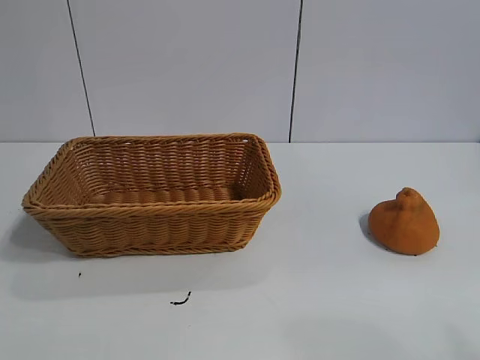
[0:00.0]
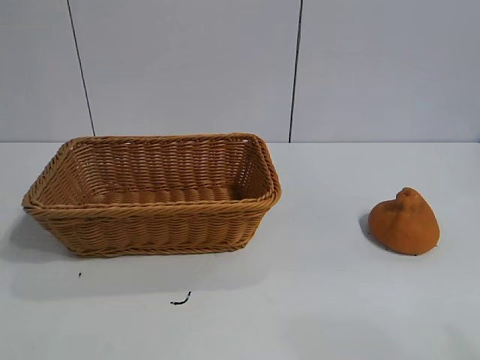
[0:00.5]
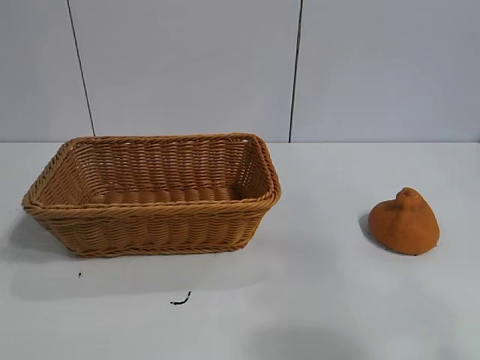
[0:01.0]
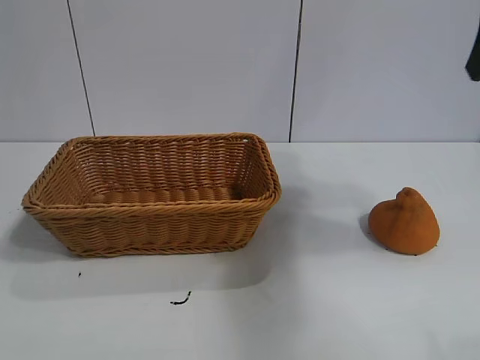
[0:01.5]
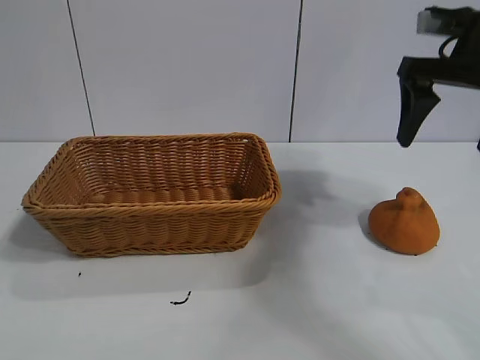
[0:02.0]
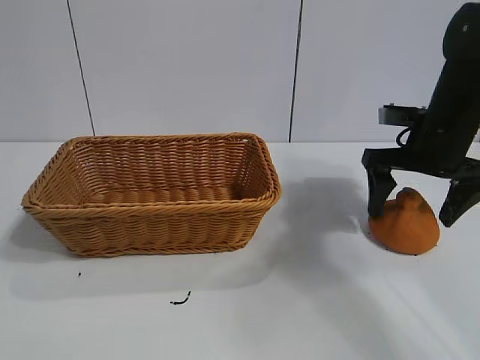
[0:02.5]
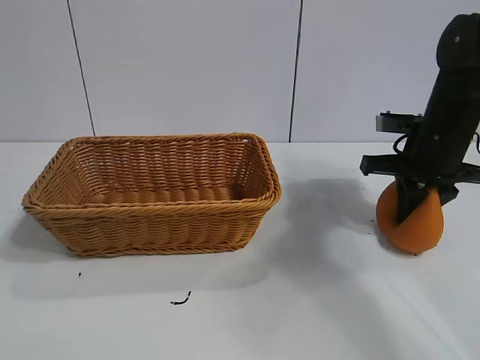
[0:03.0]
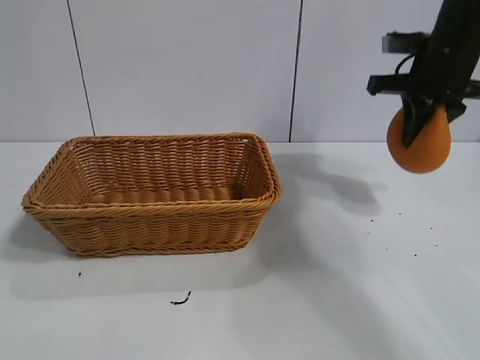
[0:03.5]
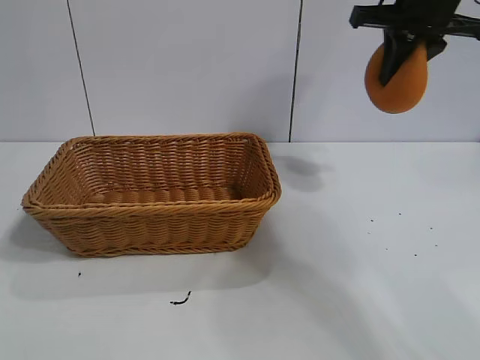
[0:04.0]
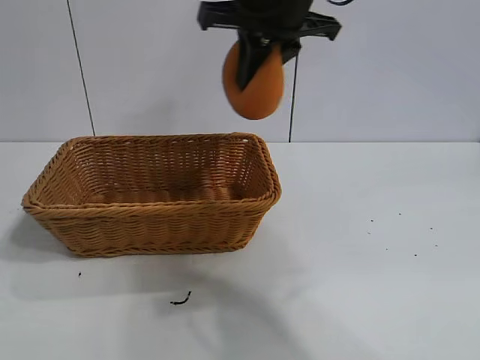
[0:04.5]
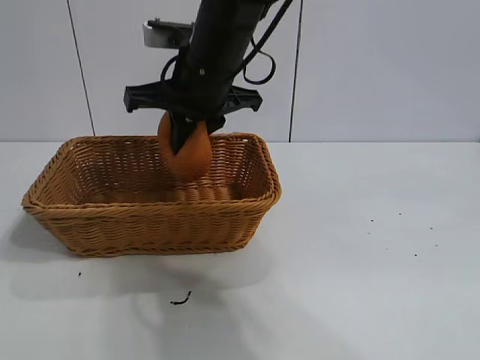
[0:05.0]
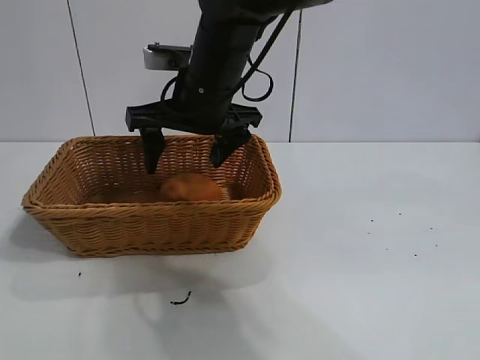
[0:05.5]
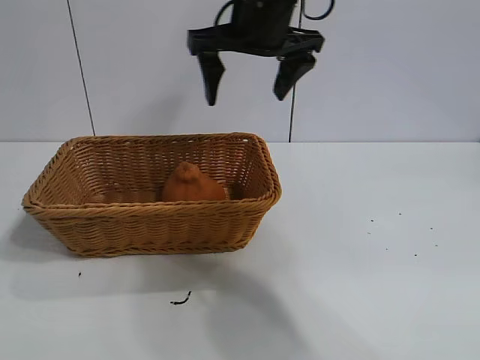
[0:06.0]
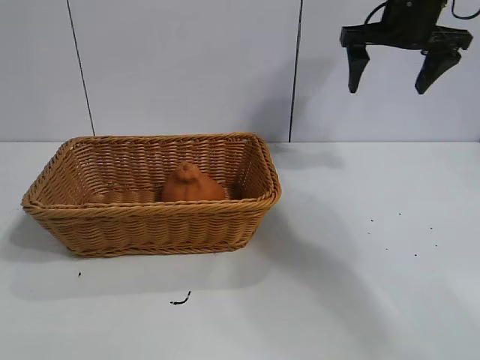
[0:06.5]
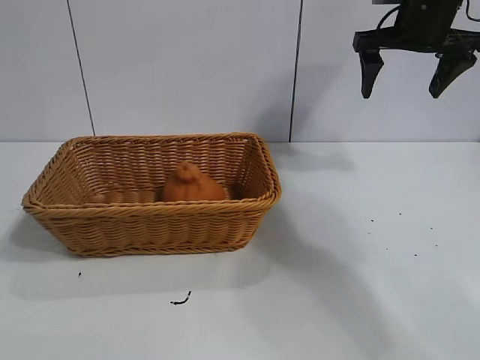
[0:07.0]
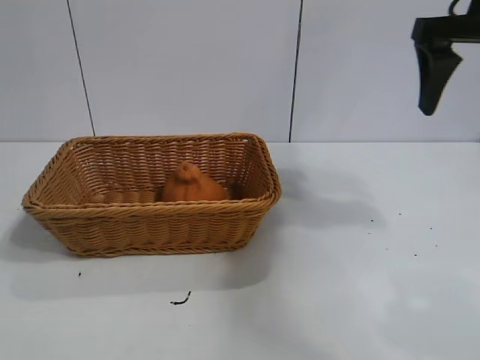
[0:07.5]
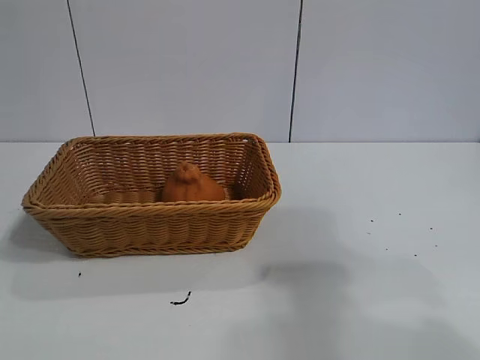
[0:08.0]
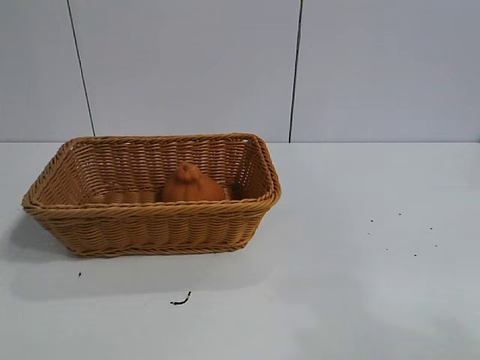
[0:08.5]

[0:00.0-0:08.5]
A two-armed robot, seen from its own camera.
Task of the whole recording: pick up the orange and put it into the basket.
Step, 0:01.0 to 0:02.5: Grasp the orange with right gripper.
Step, 0:03.5 to 0:05.5: Place the orange in the basket with right gripper.

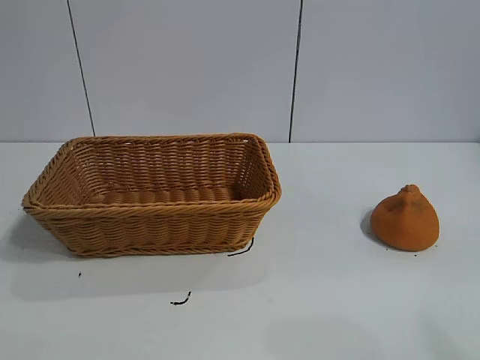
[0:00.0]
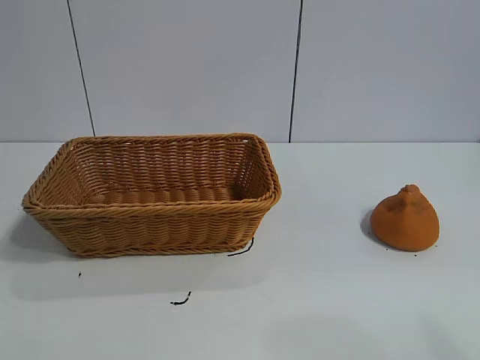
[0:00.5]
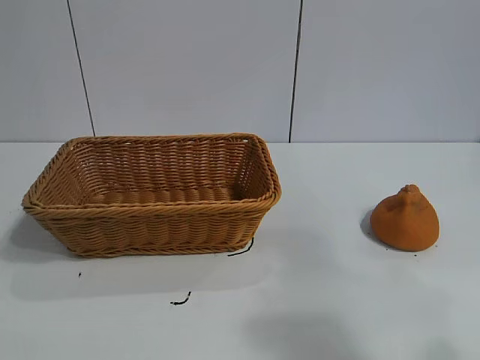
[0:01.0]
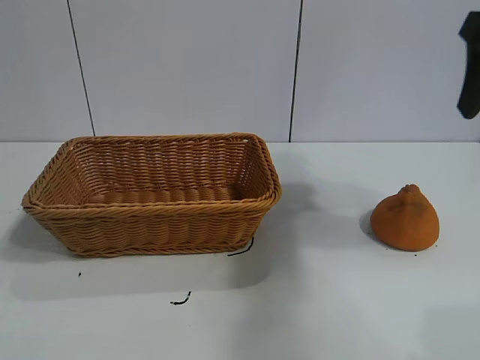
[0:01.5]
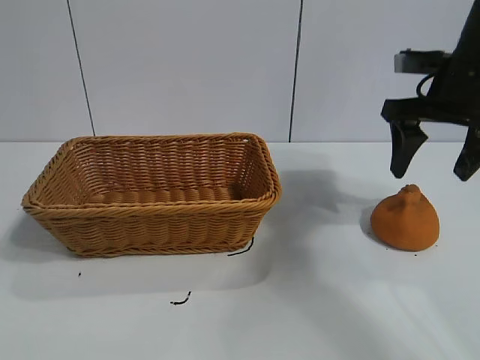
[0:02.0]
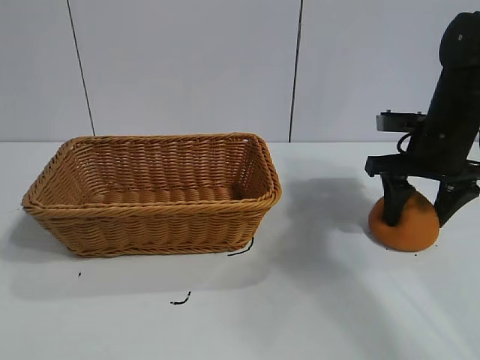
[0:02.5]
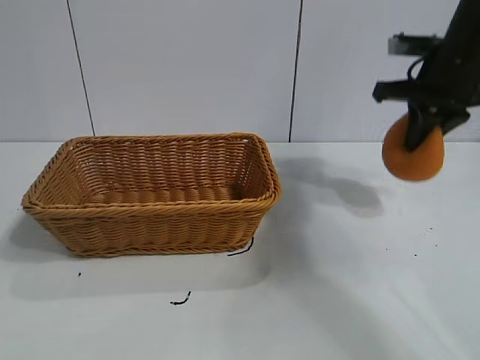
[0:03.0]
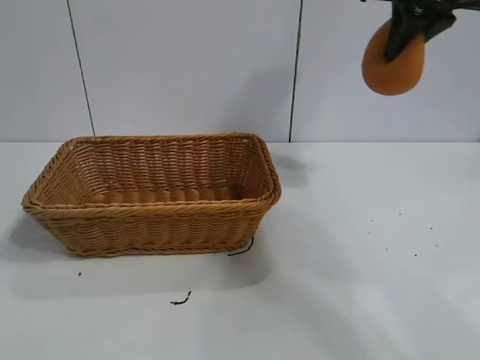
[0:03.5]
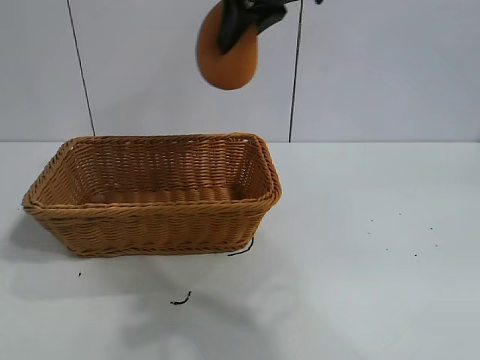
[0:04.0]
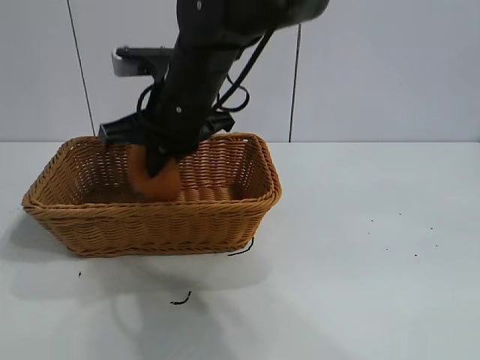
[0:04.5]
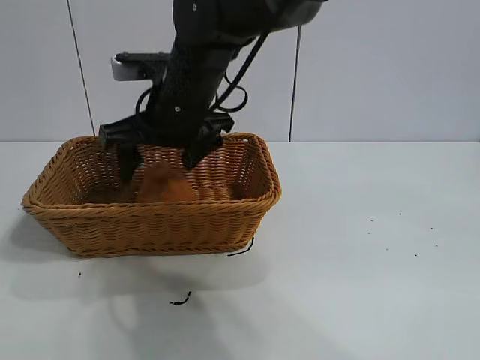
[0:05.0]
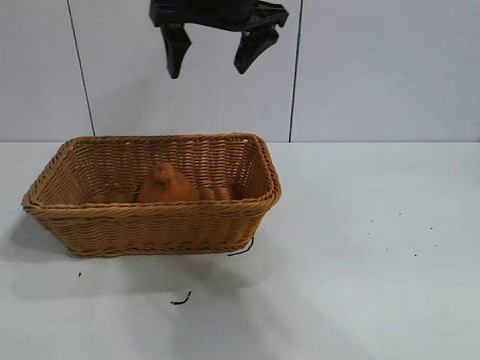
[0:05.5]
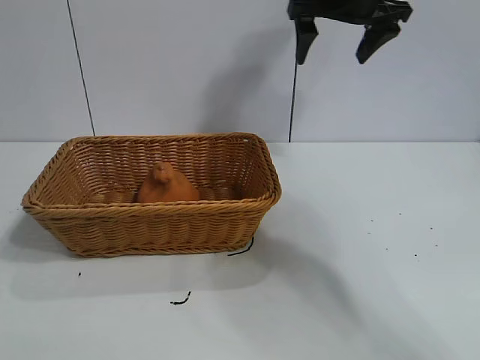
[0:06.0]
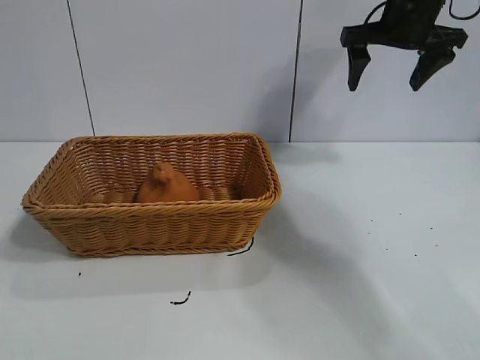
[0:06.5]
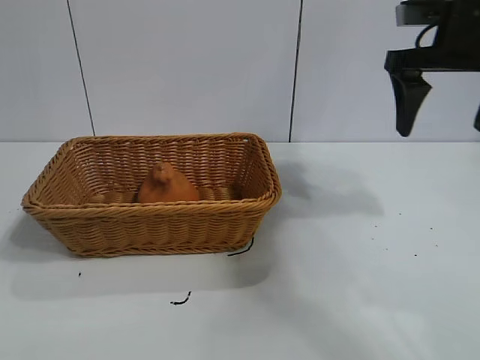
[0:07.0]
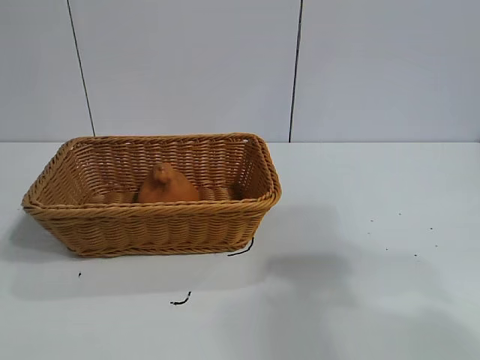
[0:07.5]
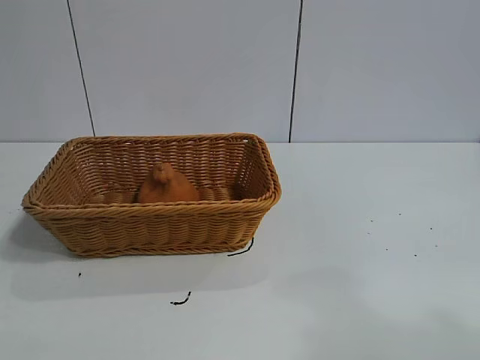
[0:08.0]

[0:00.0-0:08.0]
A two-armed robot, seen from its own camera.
Task of the whole recording: pick up the orange and put it into the basket.
Step, 0:01.0 to 0:02.5: Grasp the orange with right gripper.
Step, 0:03.0 to 0:05.0: Place the orange in the basket with right gripper.

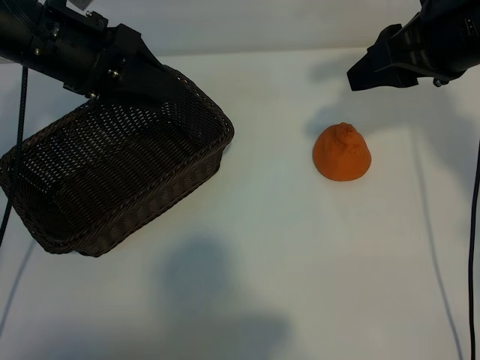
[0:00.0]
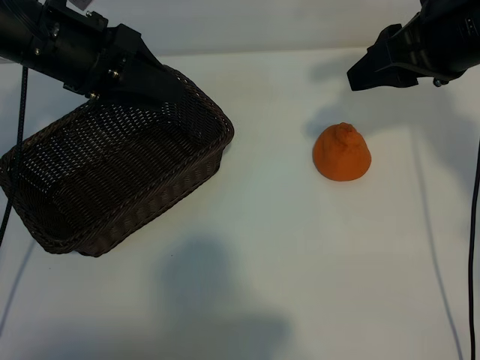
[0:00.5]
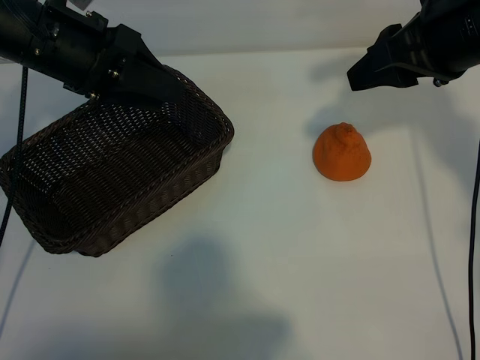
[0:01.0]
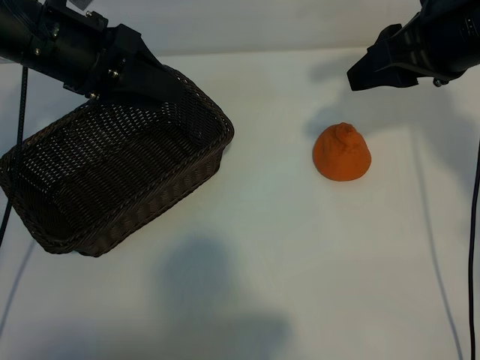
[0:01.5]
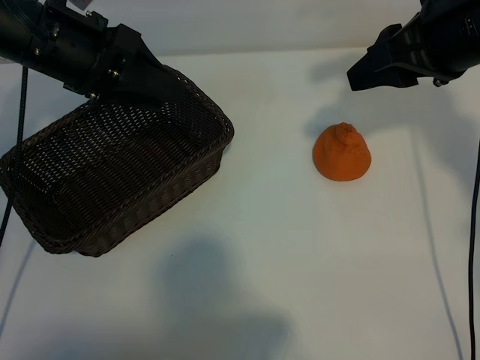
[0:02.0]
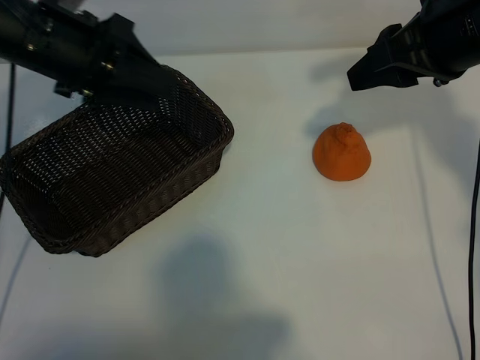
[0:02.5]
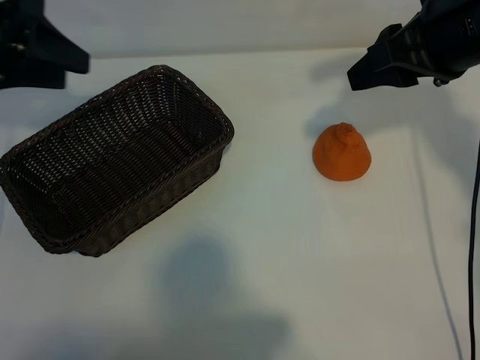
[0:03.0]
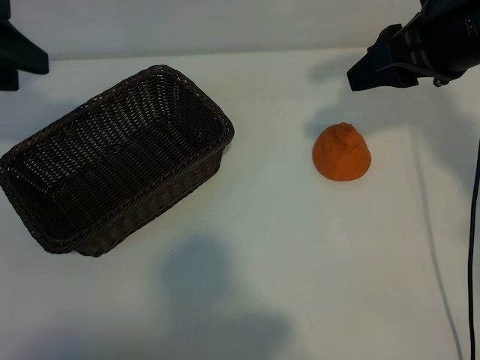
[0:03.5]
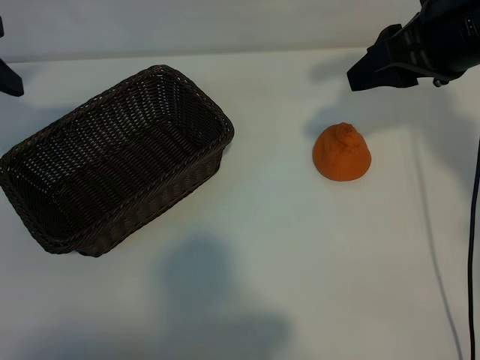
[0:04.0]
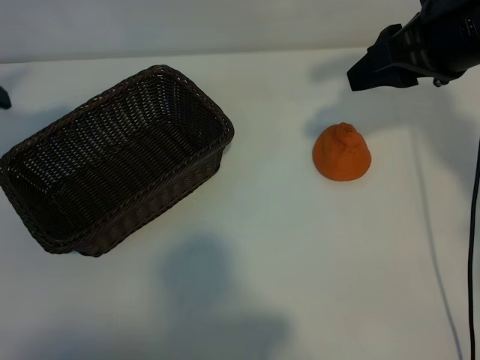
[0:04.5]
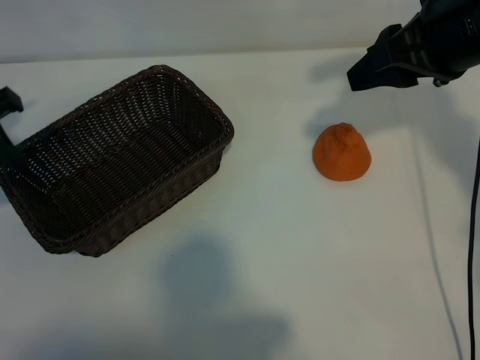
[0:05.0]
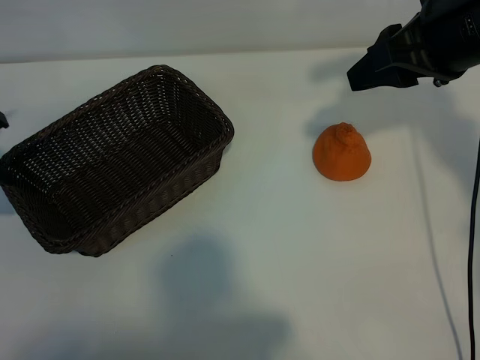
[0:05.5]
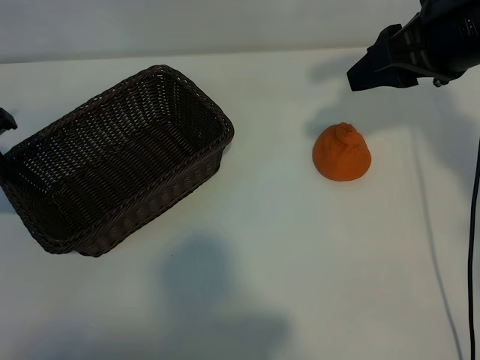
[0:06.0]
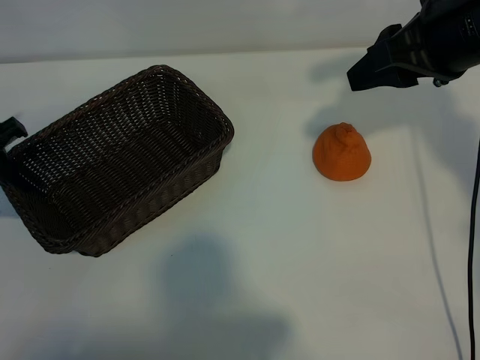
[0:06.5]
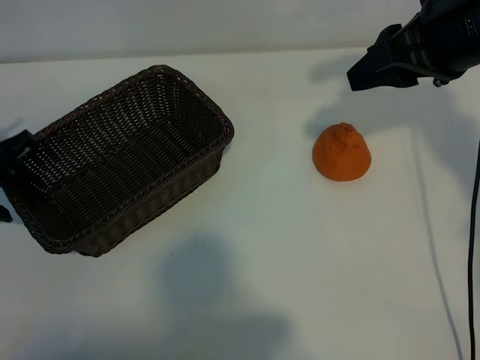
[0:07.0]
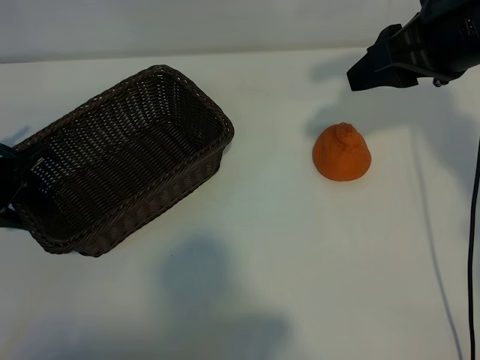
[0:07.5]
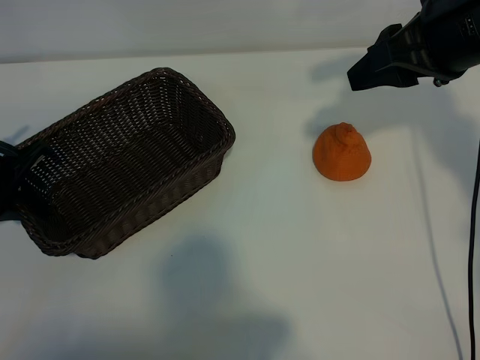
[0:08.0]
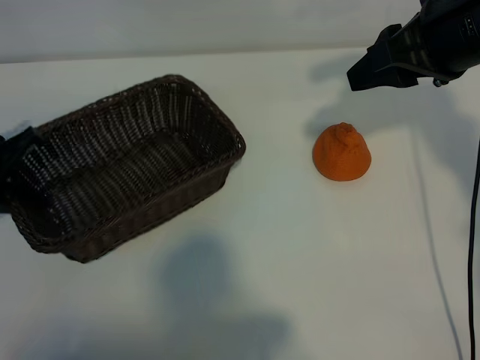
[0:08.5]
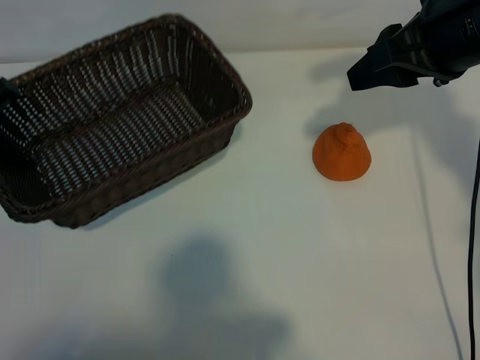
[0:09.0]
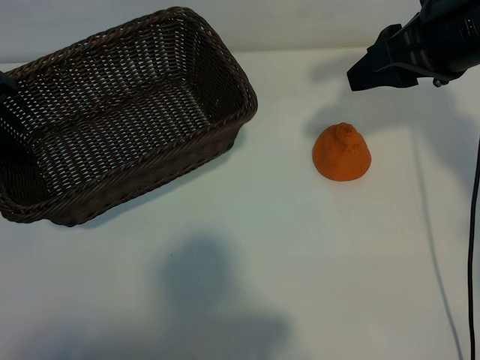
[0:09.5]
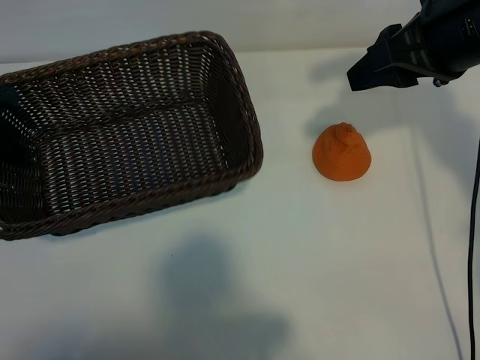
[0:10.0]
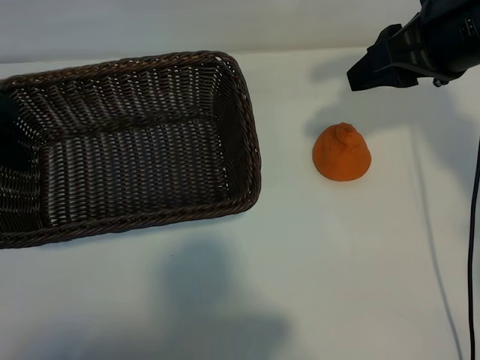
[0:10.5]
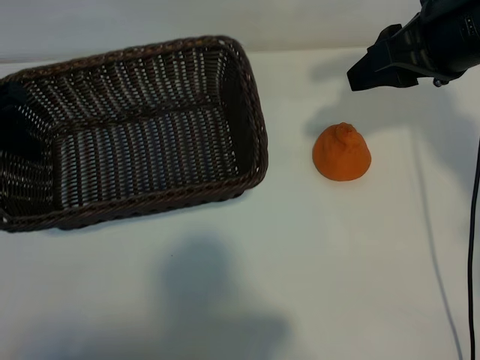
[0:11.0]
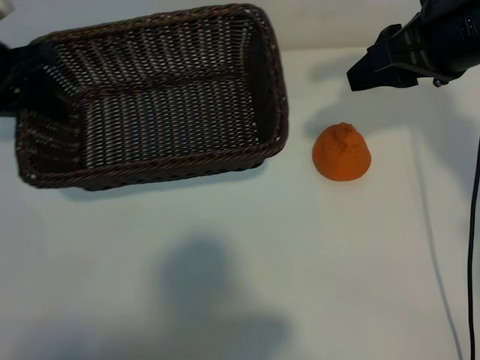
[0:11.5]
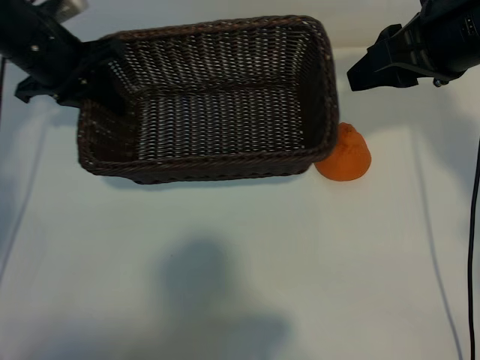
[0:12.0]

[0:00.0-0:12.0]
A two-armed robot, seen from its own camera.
Task of the whole recording: pick up the orange and put it into the basket.
Step, 0:02.5 to 0:07.5: Grasp the basket with left gripper.
